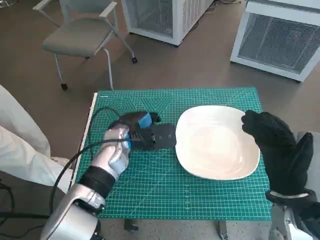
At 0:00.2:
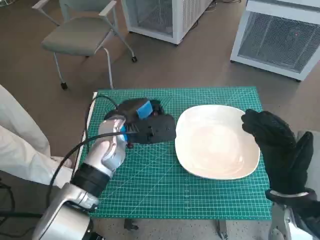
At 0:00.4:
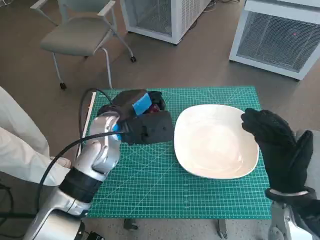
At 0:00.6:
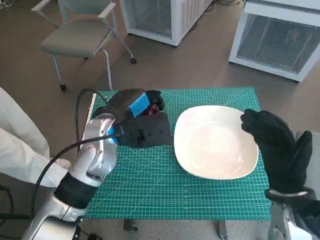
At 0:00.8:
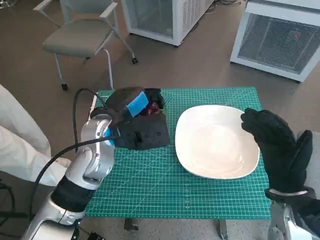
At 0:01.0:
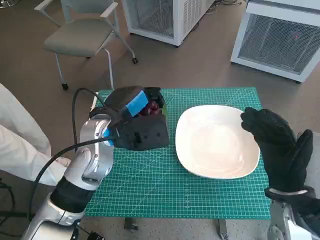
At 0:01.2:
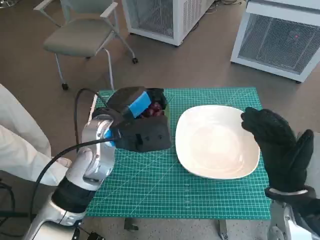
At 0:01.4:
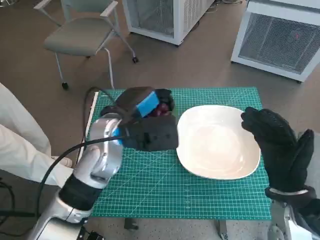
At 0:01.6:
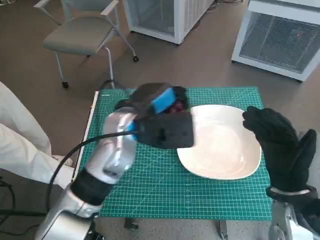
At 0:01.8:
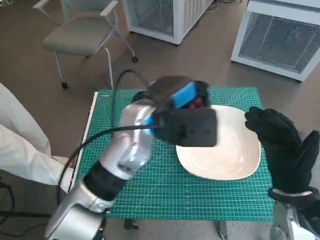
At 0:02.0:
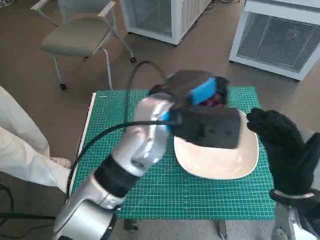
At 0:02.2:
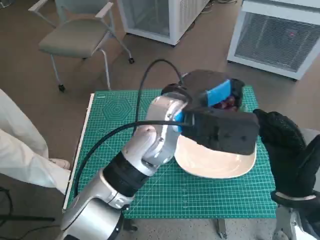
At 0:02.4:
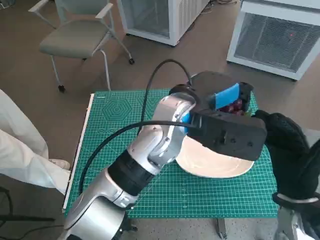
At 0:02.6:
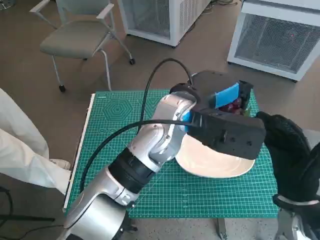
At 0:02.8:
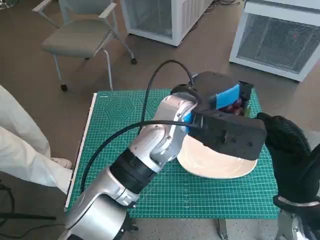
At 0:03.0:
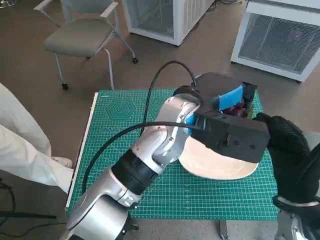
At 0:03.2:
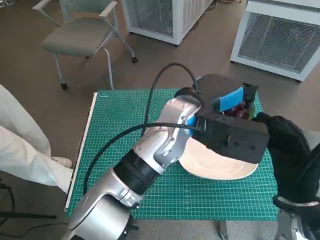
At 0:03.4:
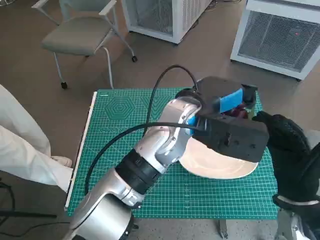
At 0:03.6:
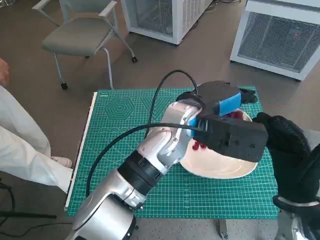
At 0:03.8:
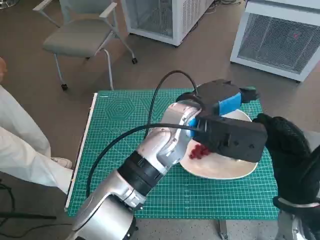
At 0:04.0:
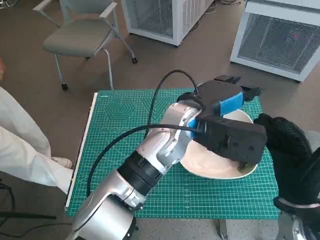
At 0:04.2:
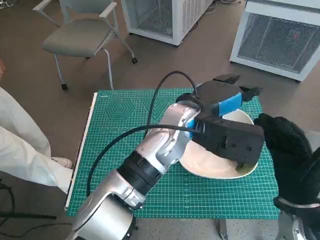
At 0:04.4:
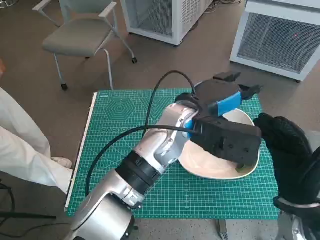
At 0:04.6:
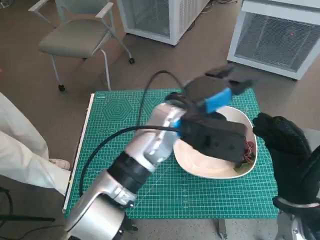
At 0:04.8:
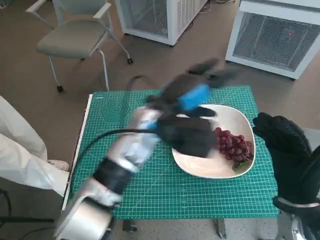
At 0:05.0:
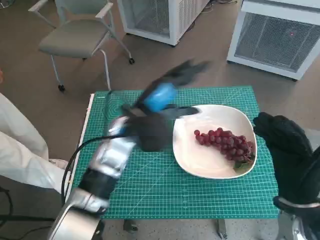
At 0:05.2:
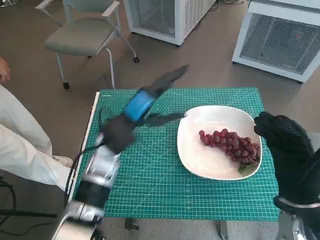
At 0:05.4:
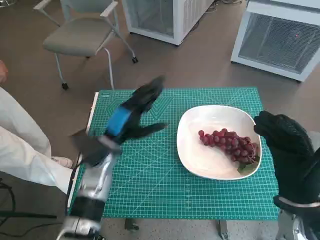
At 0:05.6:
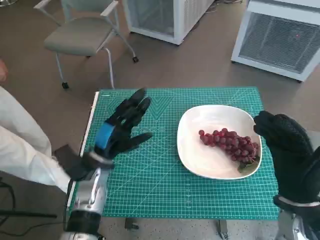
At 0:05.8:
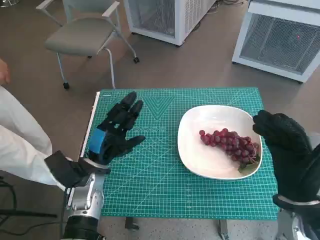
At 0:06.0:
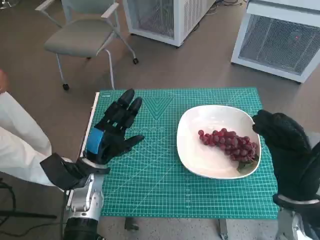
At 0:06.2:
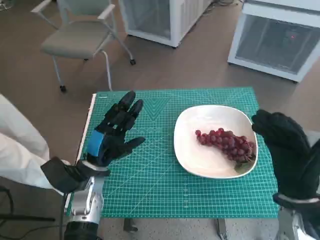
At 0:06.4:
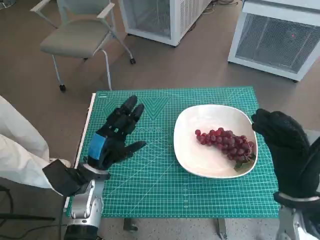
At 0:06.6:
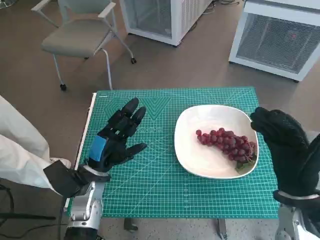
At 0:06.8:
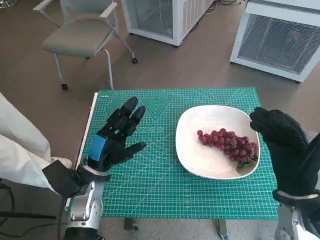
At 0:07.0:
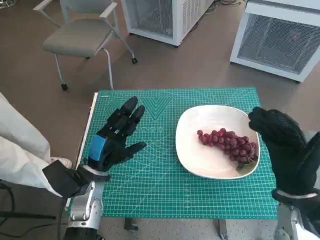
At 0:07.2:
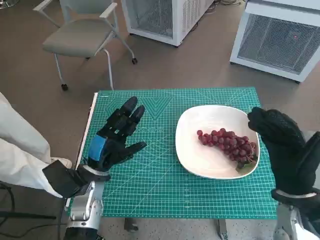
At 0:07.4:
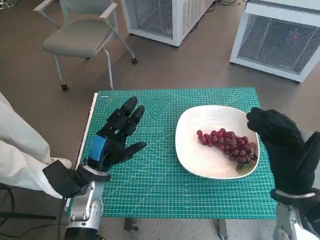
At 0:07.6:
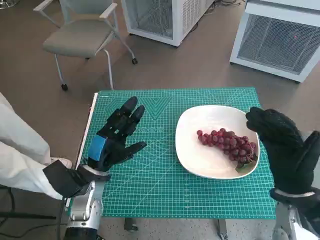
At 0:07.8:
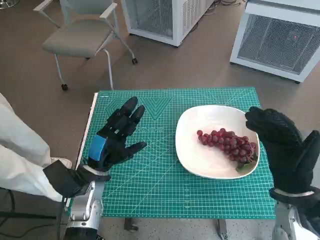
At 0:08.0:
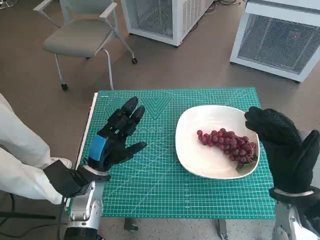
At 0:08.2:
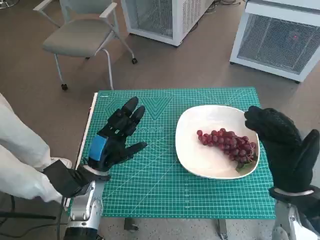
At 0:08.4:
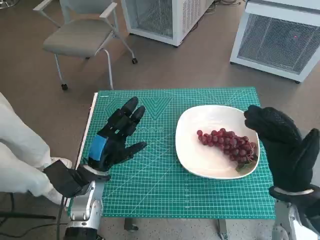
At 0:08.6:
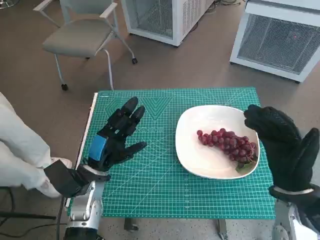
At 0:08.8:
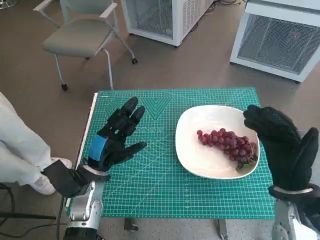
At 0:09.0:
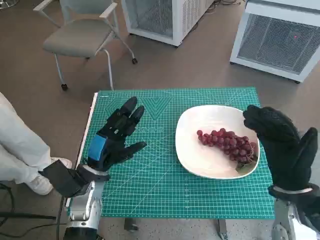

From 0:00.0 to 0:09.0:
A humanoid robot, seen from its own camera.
Task of the whole recording: Pick up the grapes and put them on the plate.
Step, from 0:00.0 to 0:03.8: Place the grapes in the plate with left hand.
From 0:00.0 to 0:01.6: The left hand moves upward, roughly 10 cm.
From 0:01.6 to 0:03.0: The left hand is displaced to the right by some 10 cm.
From 0:03.0 to 0:04.4: The hands move only a little.
From 0:04.4 to 0:06.0: The left hand shifts some 25 cm to the left and downward.
From 0:06.0 to 0:07.6: Both hands stay put.
From 0:07.6 to 0:09.0: Neither hand changes place.
